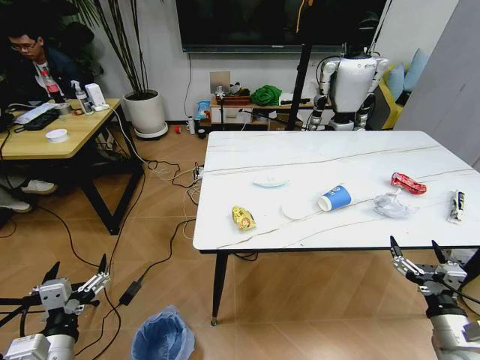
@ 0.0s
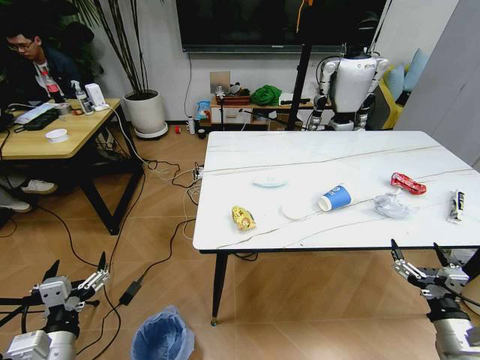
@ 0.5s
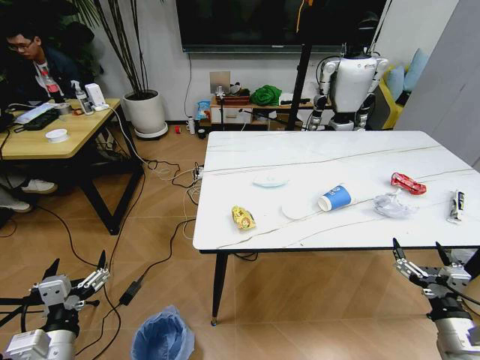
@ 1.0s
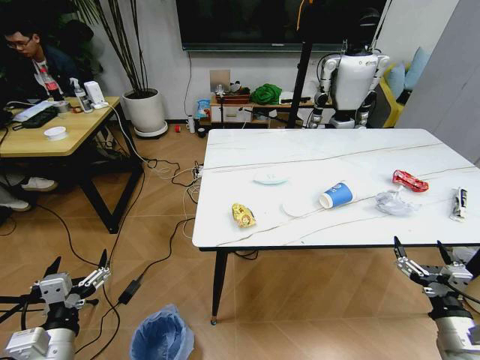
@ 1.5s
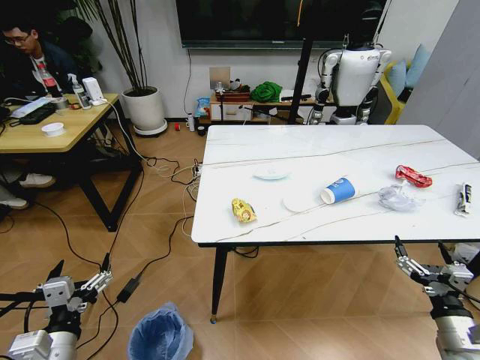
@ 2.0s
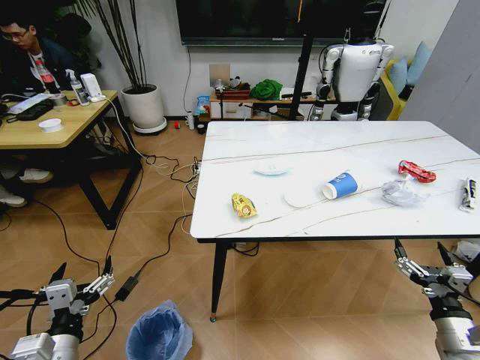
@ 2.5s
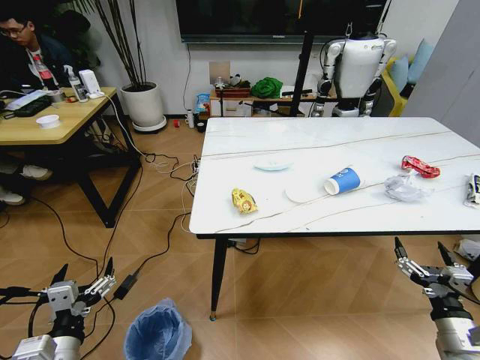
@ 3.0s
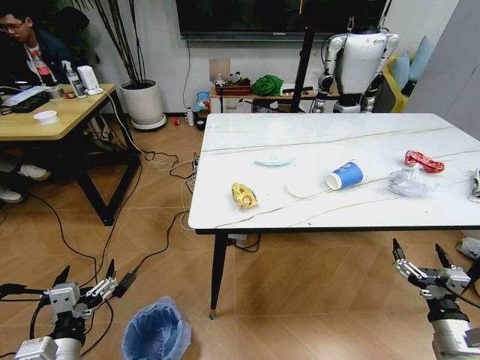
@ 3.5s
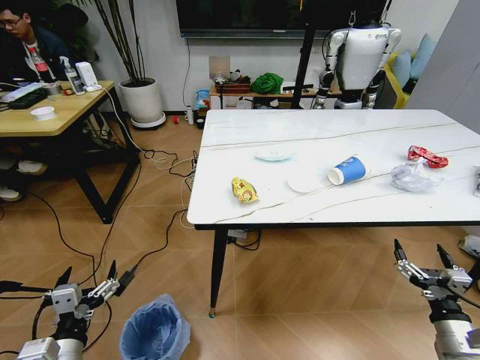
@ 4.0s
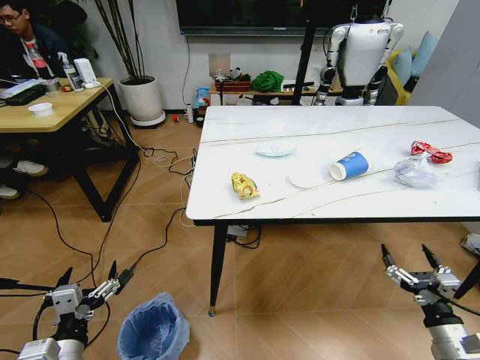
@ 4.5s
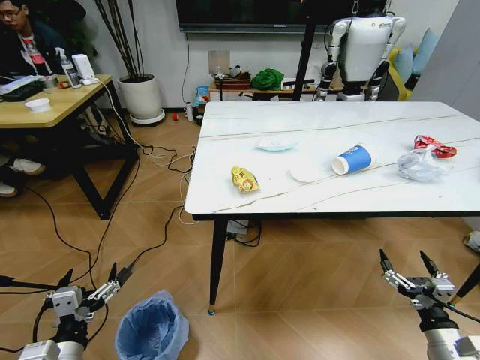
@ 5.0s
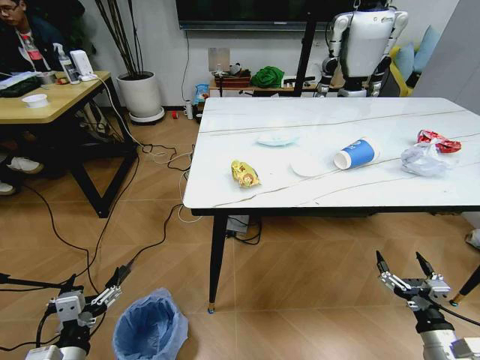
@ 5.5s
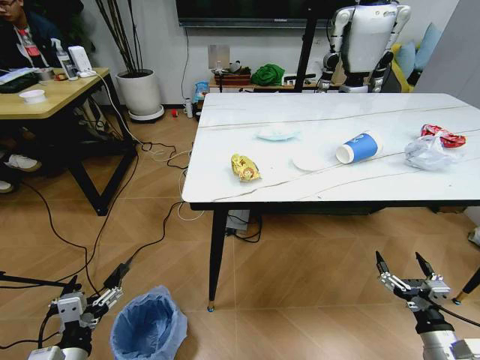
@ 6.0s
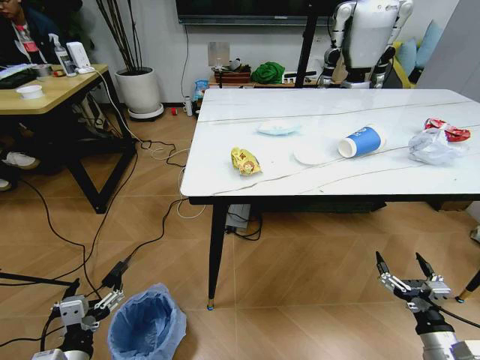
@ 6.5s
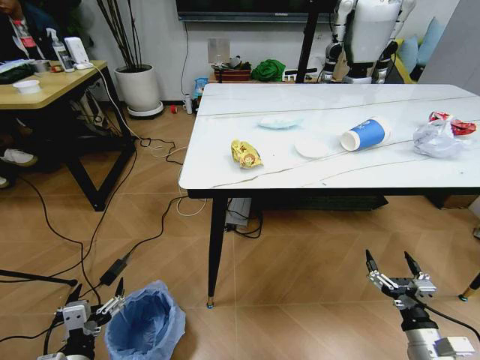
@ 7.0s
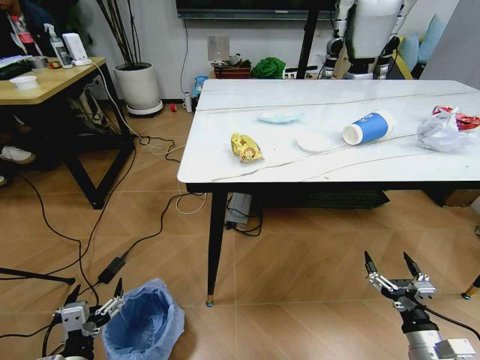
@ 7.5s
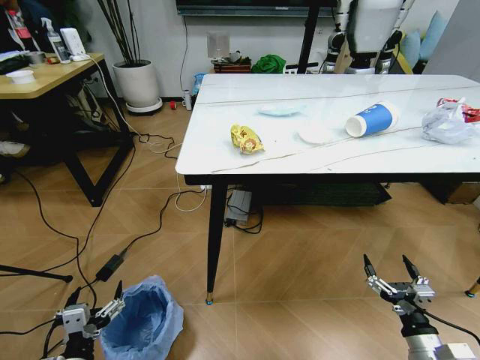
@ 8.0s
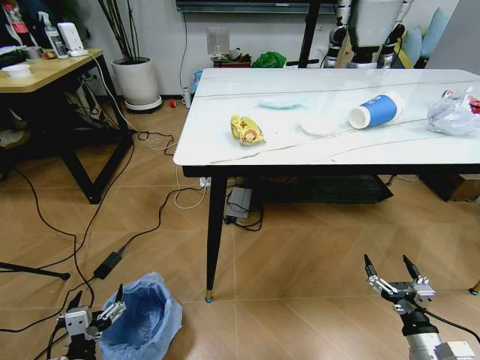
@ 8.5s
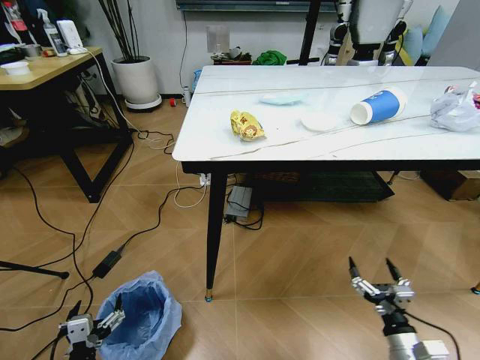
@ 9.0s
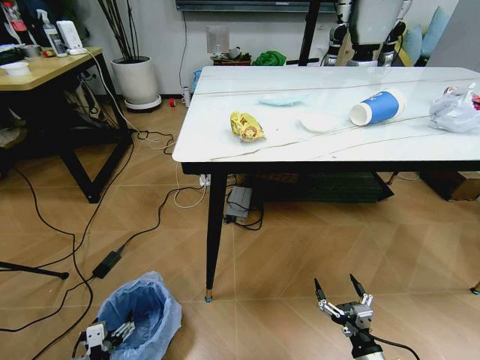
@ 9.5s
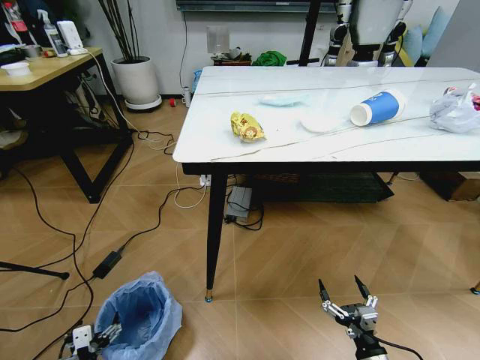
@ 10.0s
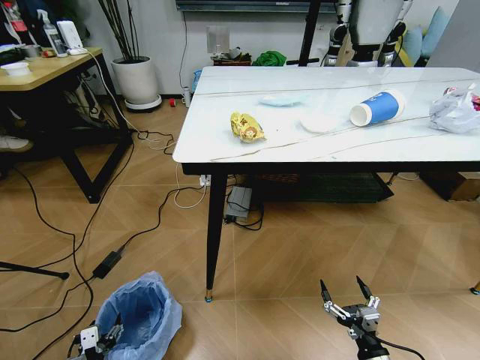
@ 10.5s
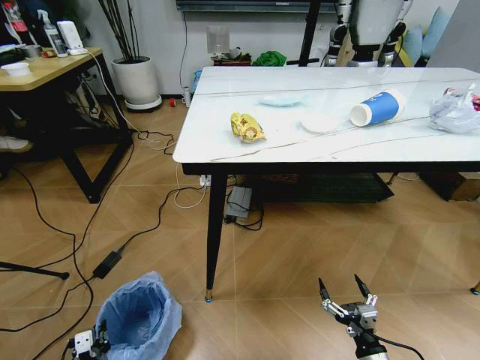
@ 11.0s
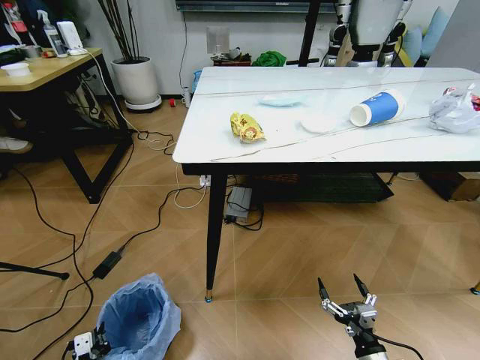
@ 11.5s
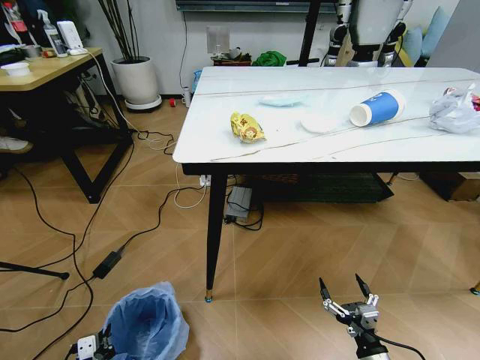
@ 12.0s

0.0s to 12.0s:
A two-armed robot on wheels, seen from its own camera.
Task of the whole recording: Pick up the trash bin and place the trash from the table into it.
8.0s to 10.0s: The left gripper moves downward, about 10 cm. Meanwhile the right gripper heads to the left and downward, covering roughly 10 cm.
10.0s to 12.0s: The left gripper closes up.

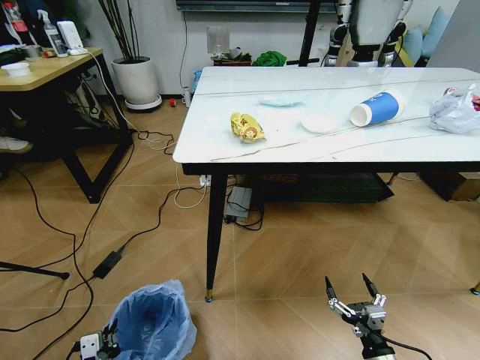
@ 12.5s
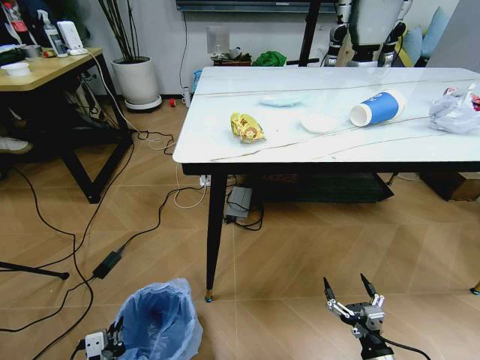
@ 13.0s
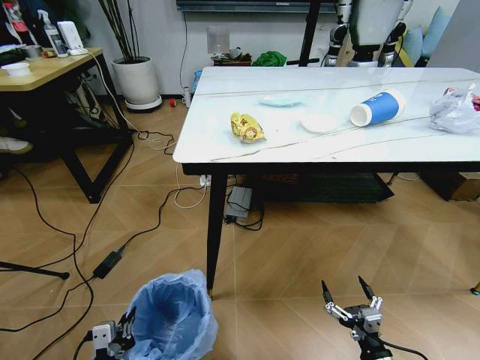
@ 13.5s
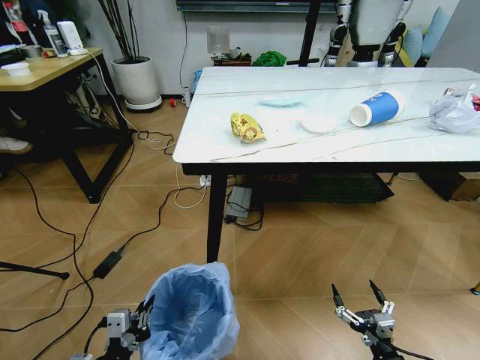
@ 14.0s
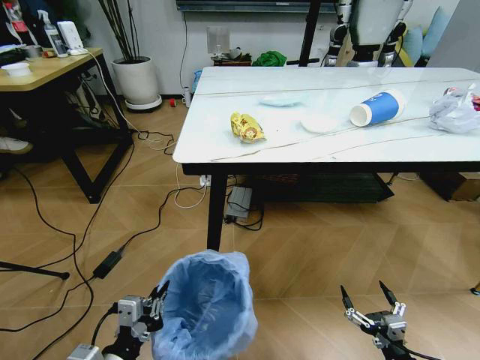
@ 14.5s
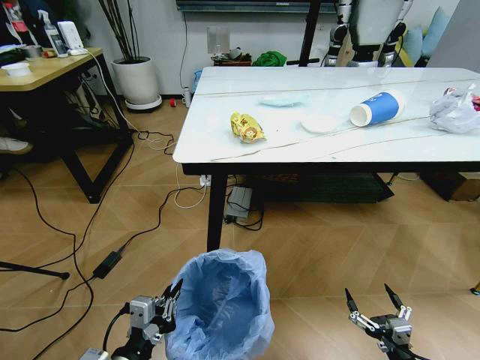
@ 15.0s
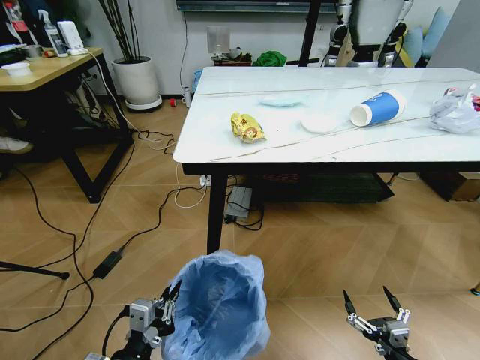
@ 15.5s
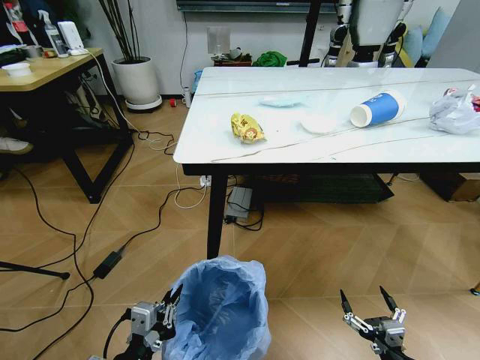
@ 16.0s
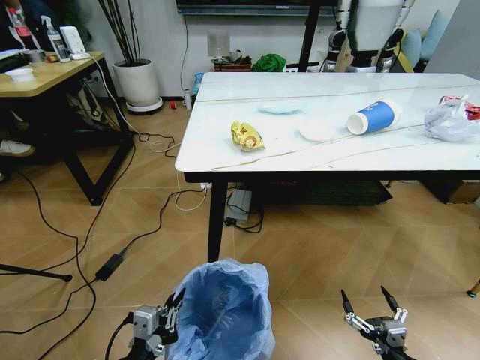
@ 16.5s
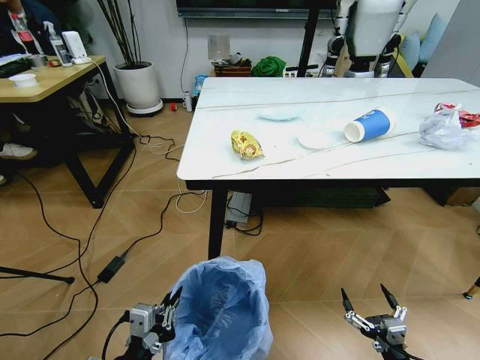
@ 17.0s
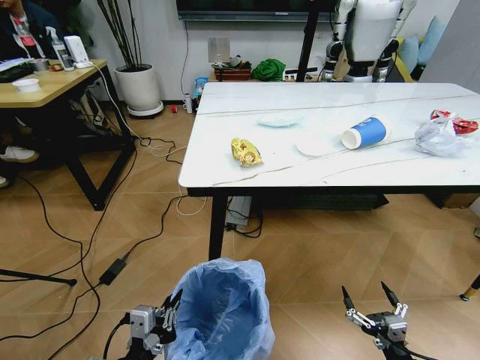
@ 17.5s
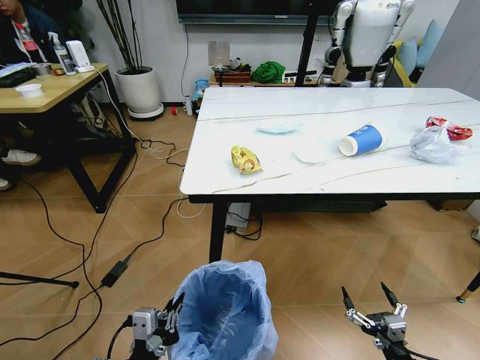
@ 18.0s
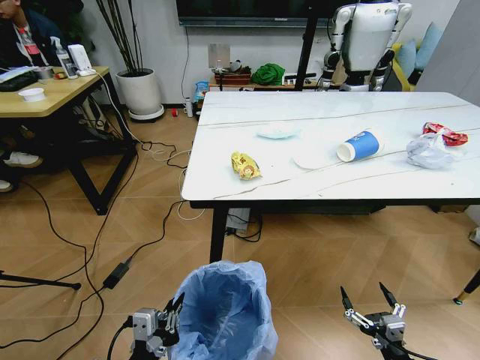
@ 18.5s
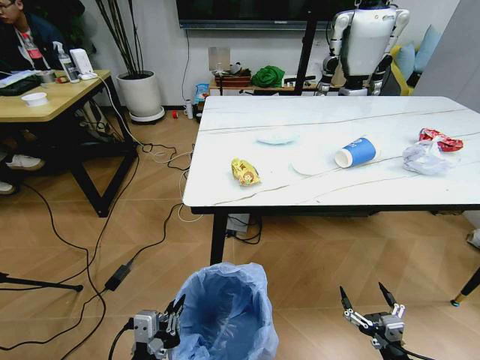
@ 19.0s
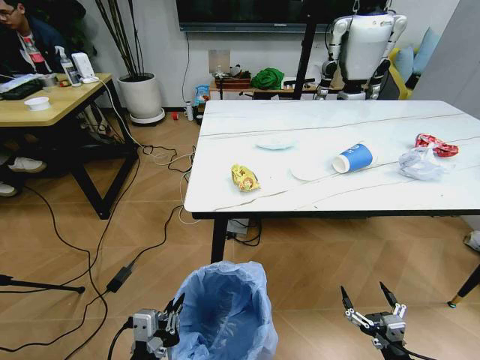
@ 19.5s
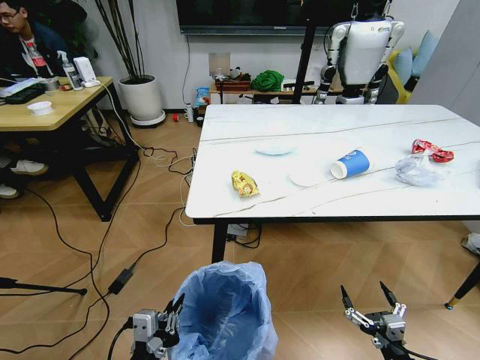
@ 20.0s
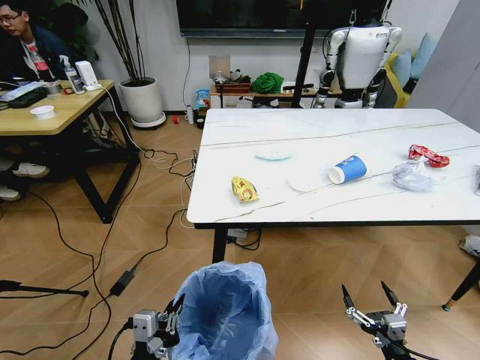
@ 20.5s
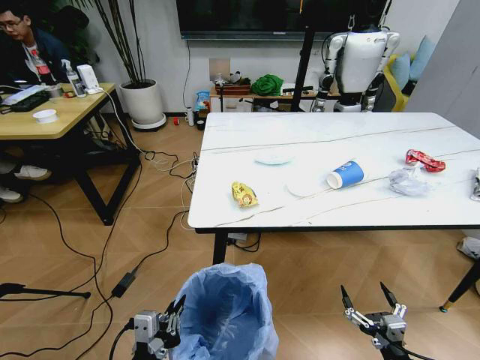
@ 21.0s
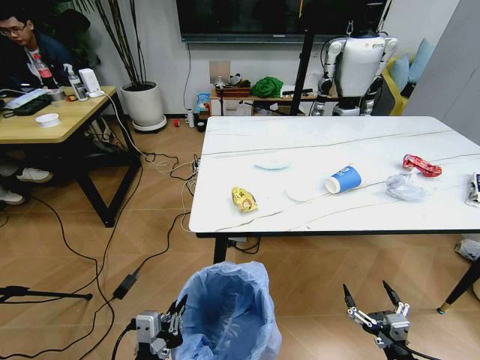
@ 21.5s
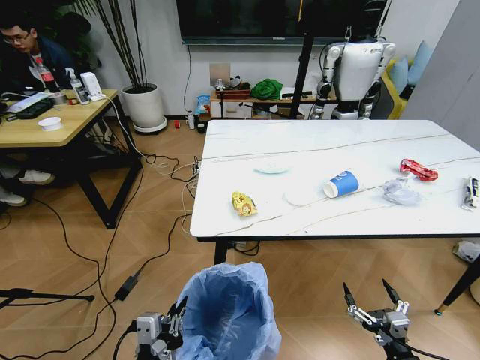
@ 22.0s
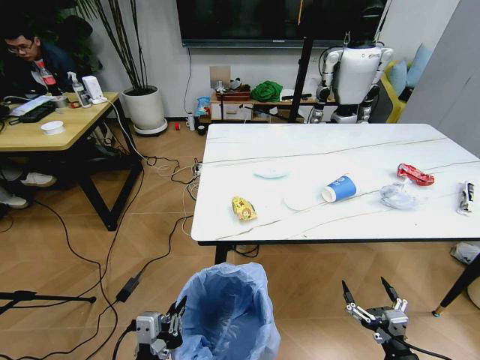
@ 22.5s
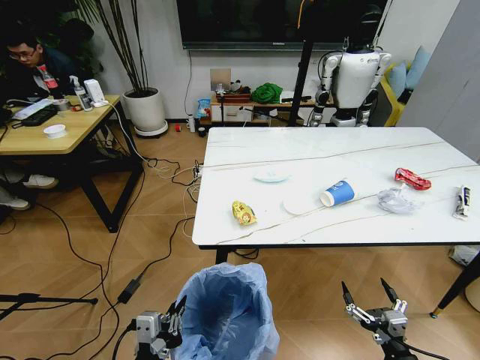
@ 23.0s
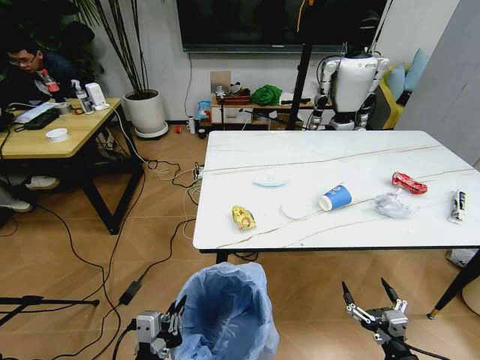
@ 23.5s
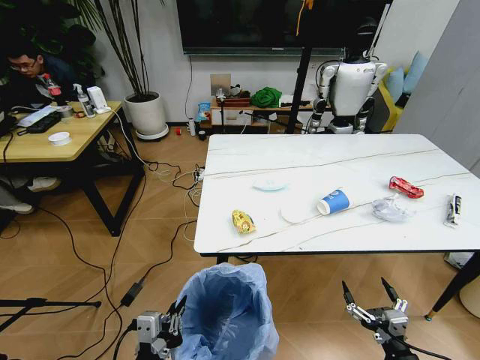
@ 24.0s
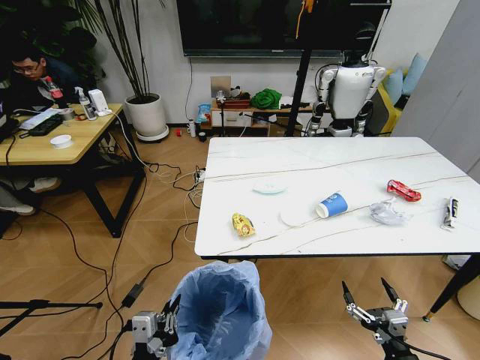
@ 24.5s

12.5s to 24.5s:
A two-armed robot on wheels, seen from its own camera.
Task of the whole recording: Pick up the trash bin and place the trash from the table into it.
12.5s to 14.5s: The left gripper shifts about 15 cm upward and to the right.

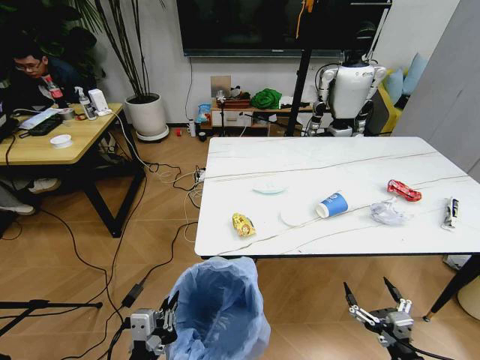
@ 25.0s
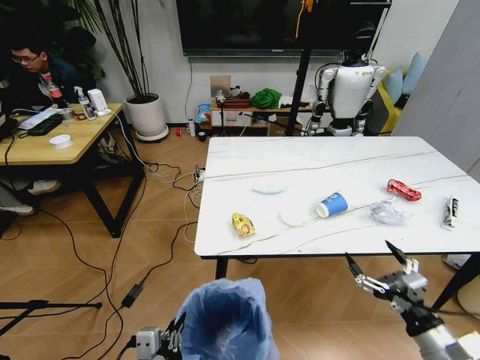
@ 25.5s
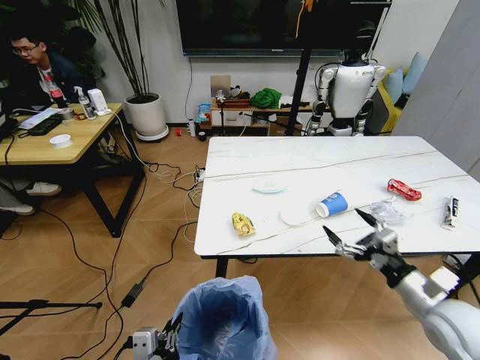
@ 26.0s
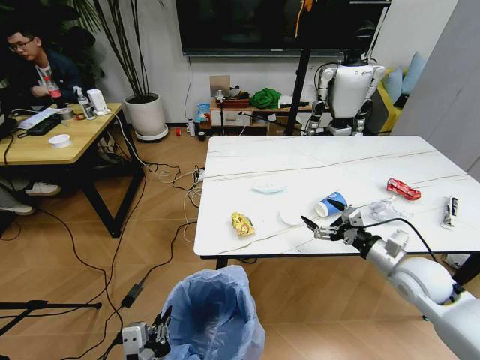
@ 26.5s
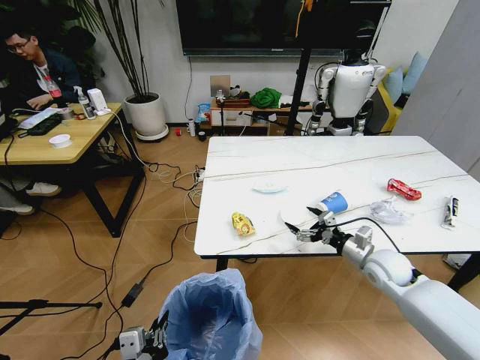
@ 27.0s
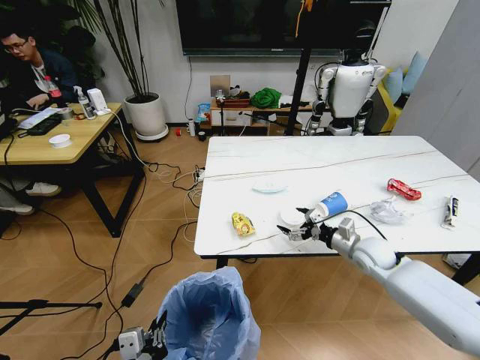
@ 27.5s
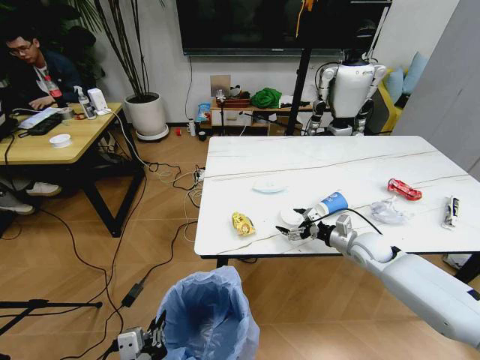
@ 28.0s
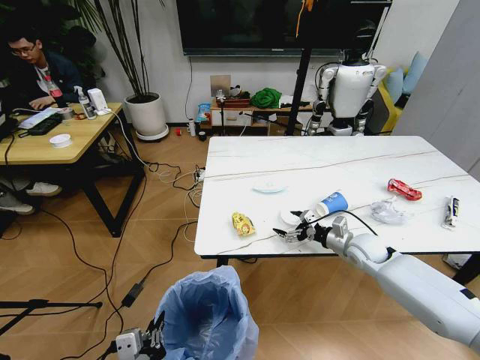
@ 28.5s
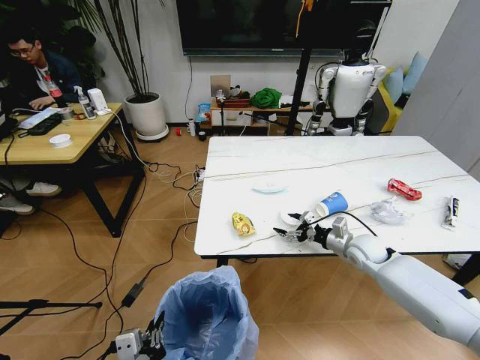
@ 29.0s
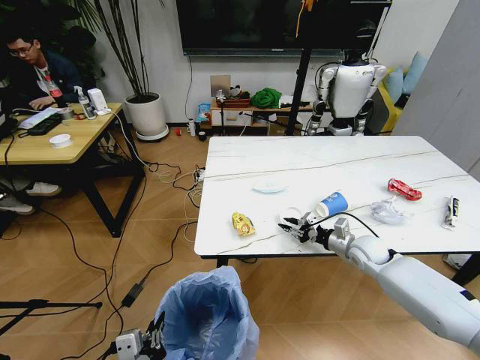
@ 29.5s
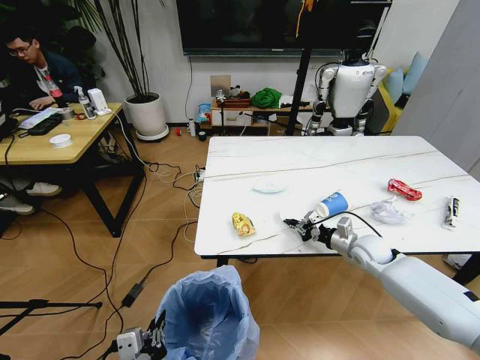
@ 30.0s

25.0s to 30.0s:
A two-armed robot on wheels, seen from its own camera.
Task of the whole recording: Pick up the trash bin and place the trash from the table into it.
25.0s to 27.5s: The right gripper shifts about 30 cm forward.
27.5s to 30.0s: The right gripper closes up.
